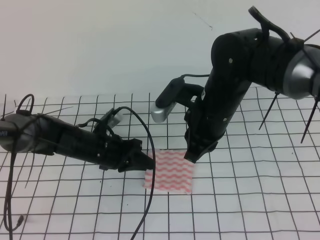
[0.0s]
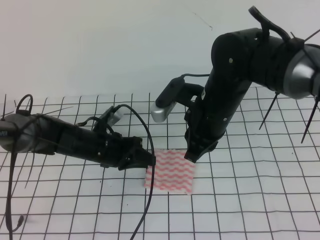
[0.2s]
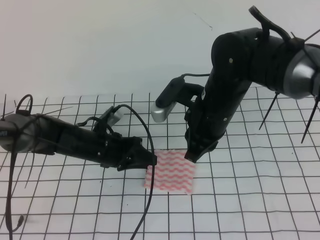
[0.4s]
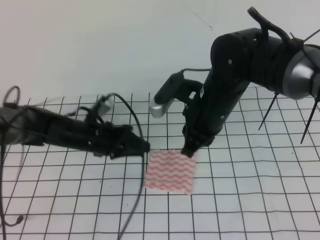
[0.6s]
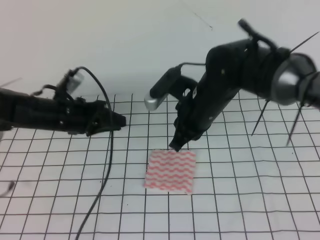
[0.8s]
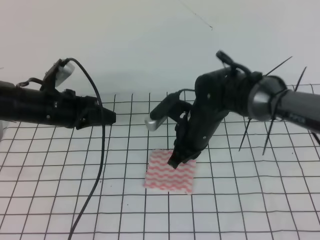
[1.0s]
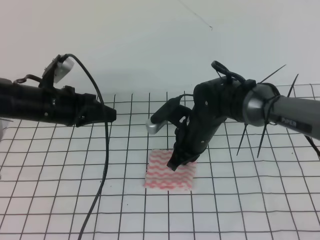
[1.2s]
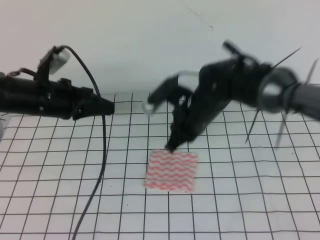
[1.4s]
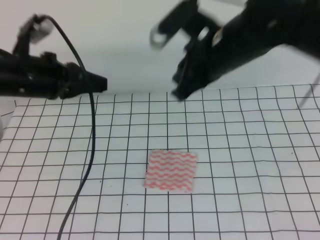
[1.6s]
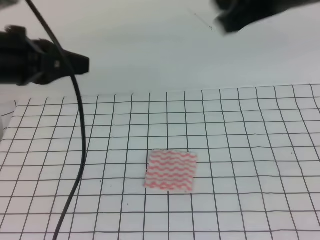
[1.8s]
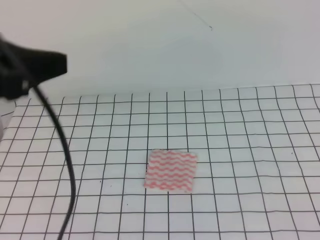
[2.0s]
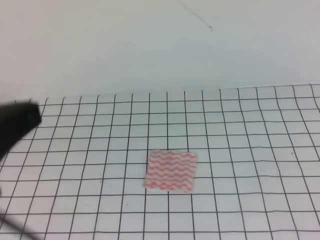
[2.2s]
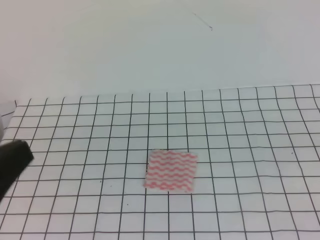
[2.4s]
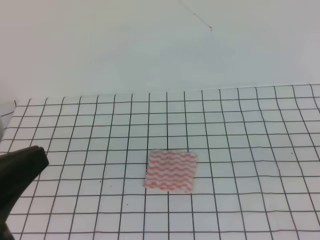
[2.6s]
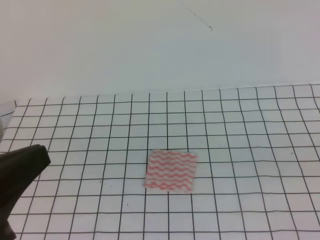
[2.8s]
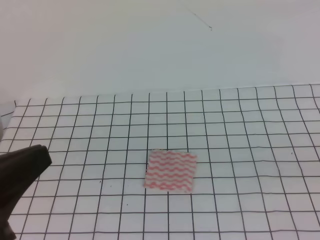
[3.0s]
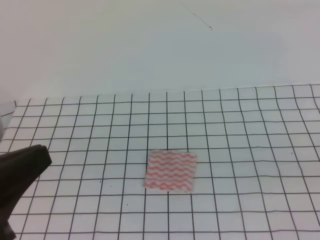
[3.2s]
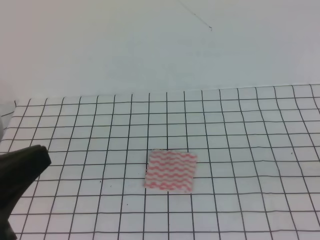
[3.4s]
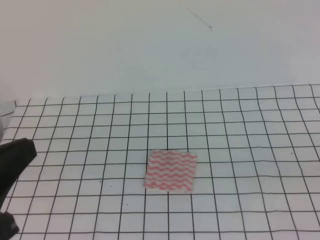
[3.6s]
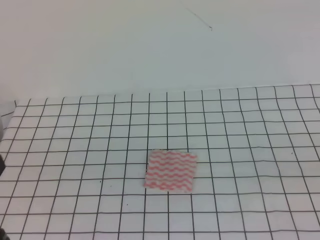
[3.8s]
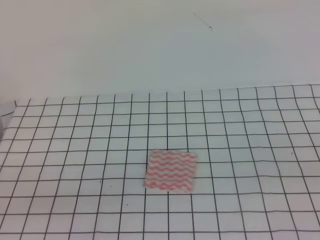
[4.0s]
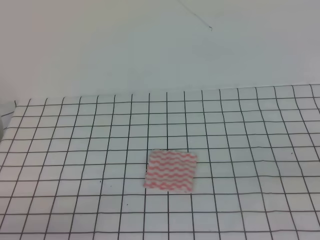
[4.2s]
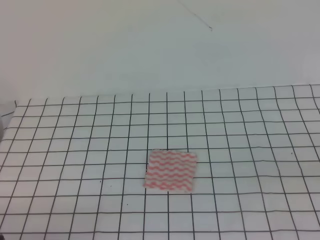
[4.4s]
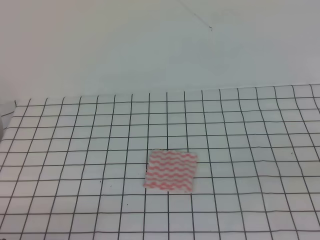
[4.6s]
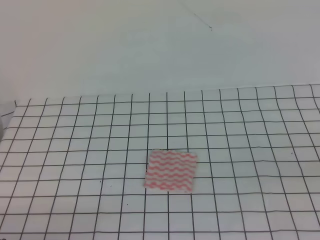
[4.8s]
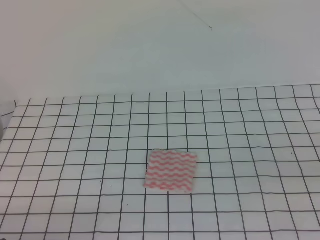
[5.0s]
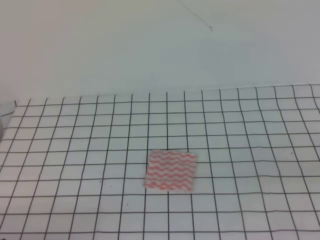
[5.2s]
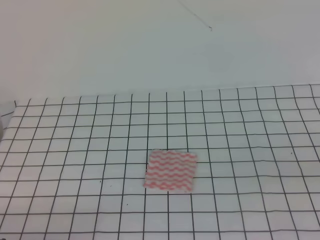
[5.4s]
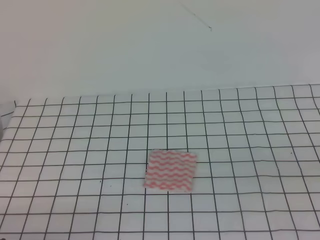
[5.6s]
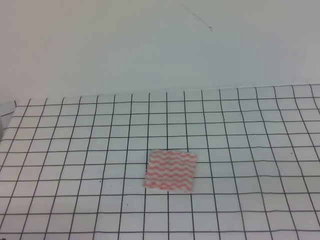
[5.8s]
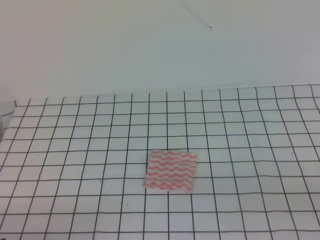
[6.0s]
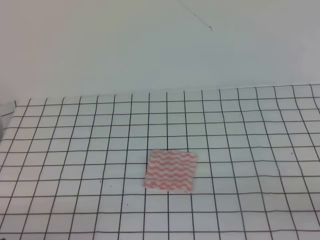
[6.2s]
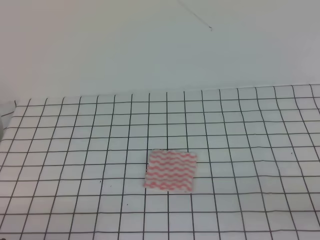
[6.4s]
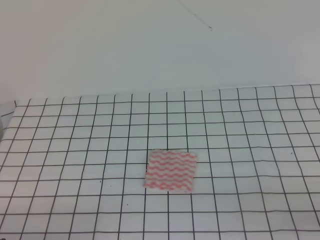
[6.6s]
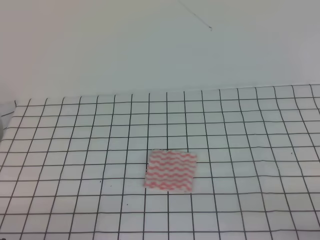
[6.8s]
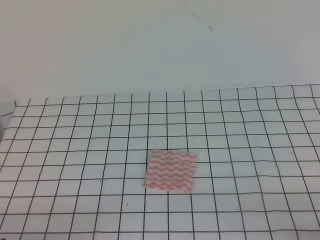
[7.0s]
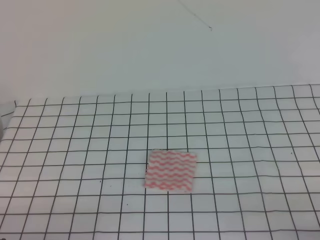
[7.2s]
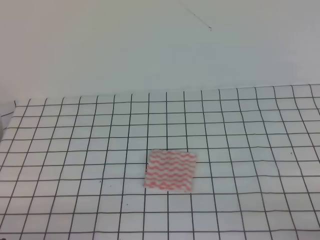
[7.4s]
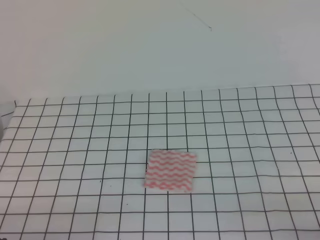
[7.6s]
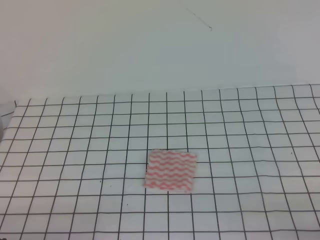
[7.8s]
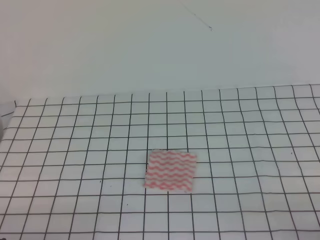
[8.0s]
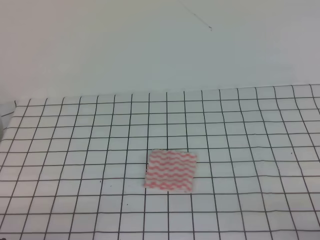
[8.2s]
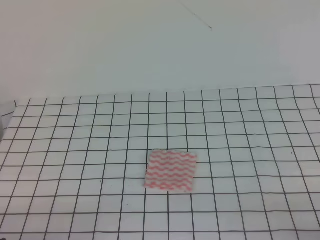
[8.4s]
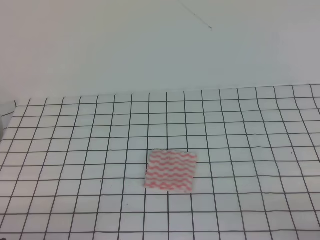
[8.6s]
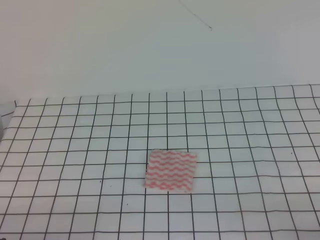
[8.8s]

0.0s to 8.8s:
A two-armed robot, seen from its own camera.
0.0s to 1.4s: The left gripper travels upward and to the left by roughly 15 cm, and opens and closes again.
1.4s to 3.0s: The left gripper moves backward, some 30 cm. The right gripper heads backward and to the right, covering approximately 40 cm.
3.0s to 4.4s: The left gripper moves downward, roughly 15 cm.
7.4s to 8.8s: The two grippers keep their place.
